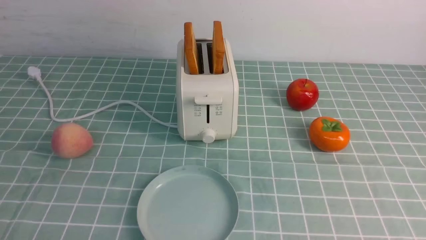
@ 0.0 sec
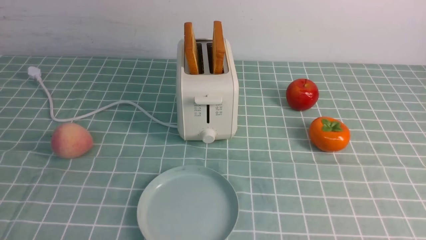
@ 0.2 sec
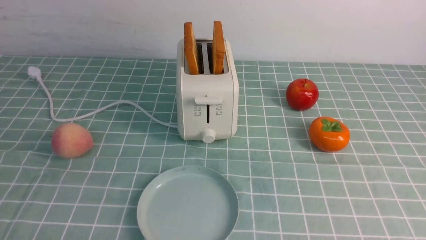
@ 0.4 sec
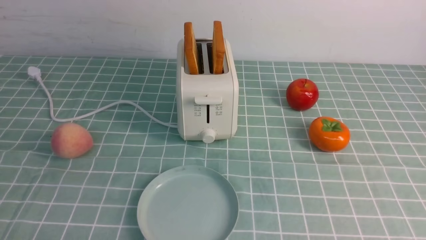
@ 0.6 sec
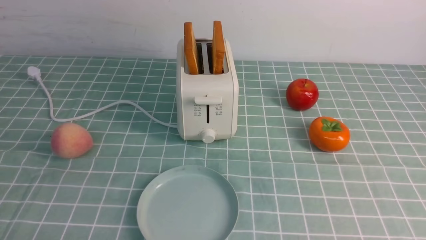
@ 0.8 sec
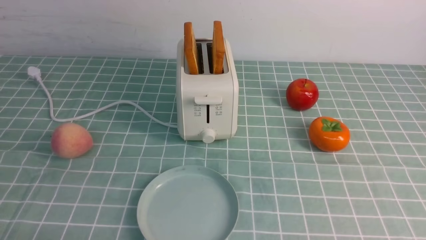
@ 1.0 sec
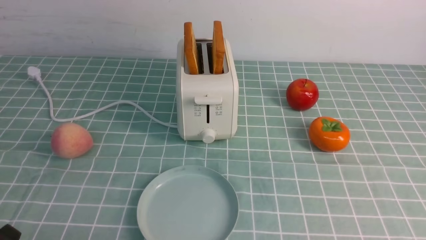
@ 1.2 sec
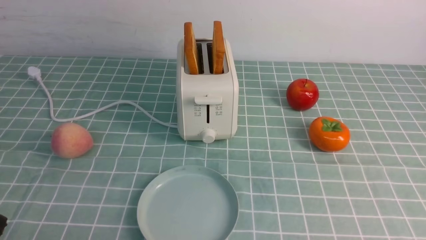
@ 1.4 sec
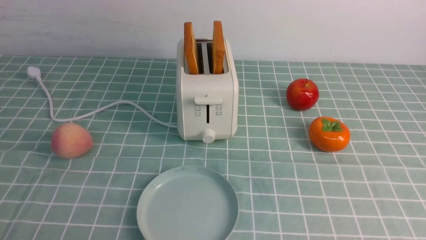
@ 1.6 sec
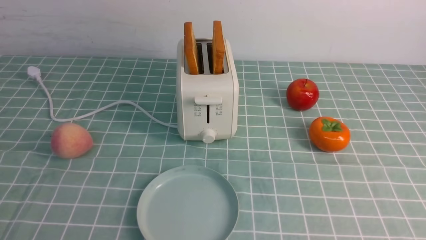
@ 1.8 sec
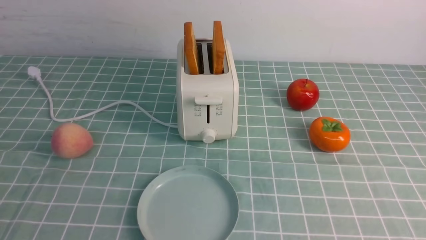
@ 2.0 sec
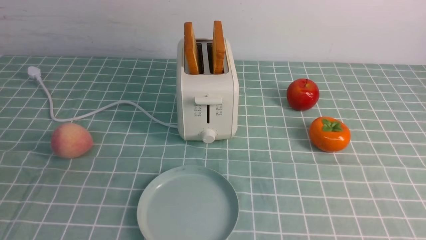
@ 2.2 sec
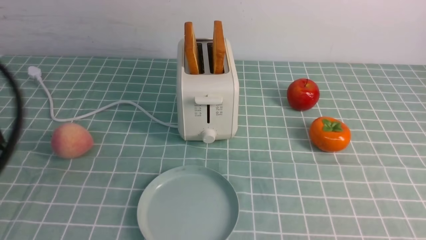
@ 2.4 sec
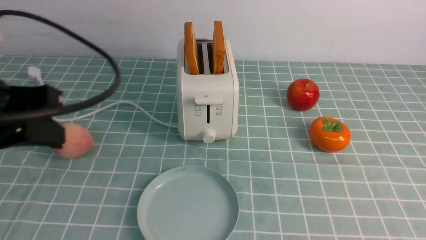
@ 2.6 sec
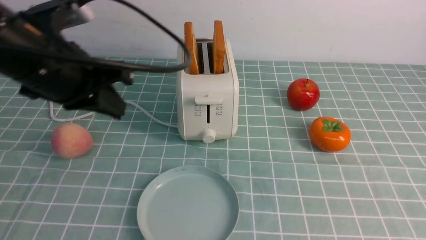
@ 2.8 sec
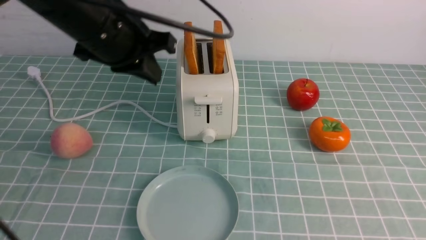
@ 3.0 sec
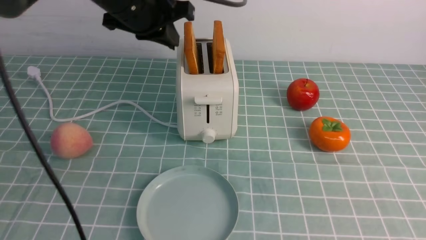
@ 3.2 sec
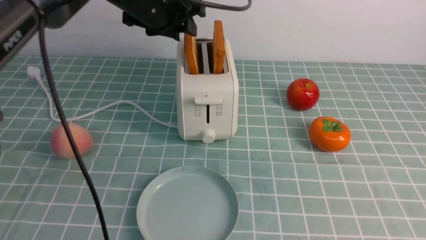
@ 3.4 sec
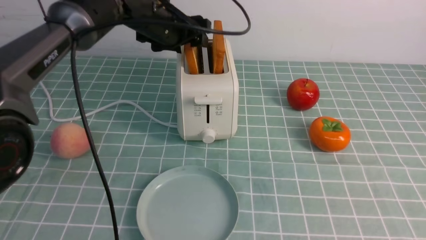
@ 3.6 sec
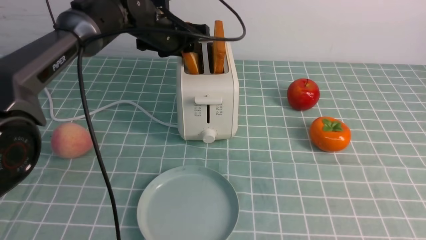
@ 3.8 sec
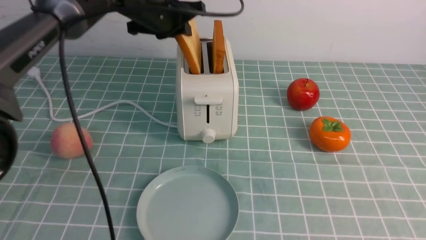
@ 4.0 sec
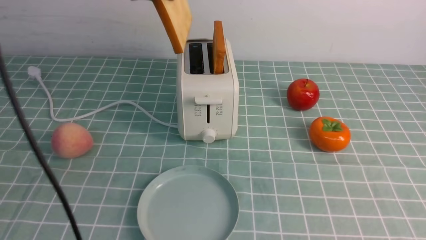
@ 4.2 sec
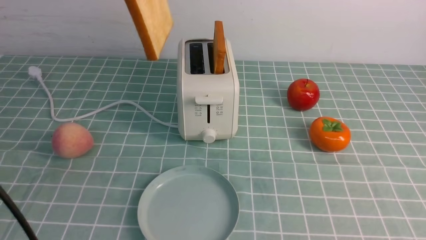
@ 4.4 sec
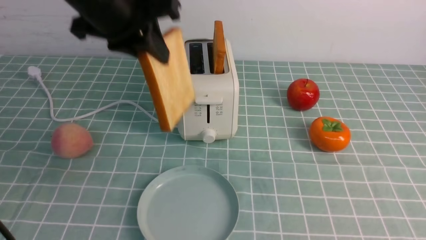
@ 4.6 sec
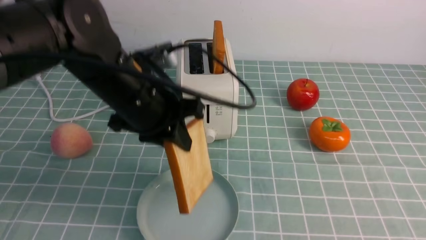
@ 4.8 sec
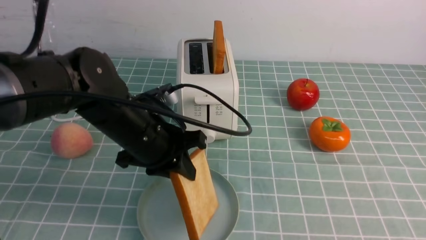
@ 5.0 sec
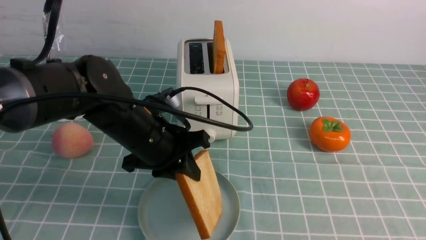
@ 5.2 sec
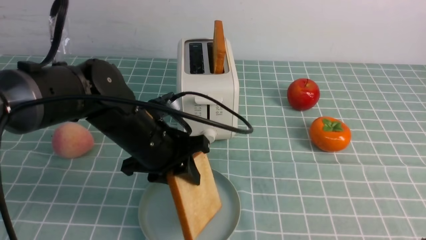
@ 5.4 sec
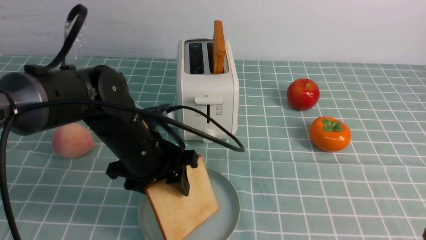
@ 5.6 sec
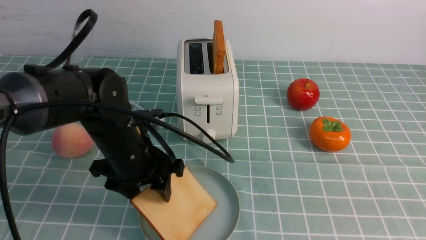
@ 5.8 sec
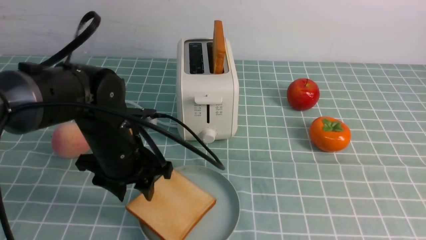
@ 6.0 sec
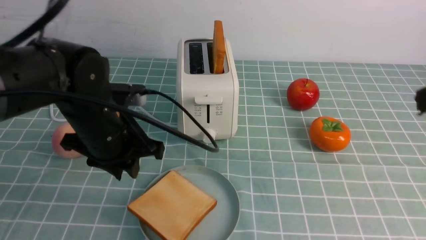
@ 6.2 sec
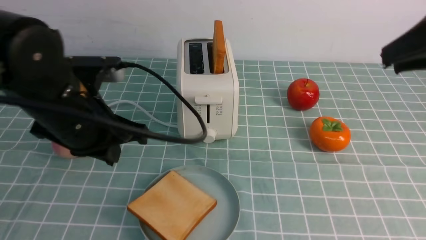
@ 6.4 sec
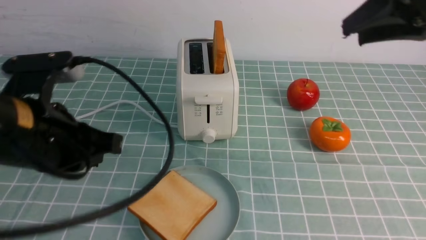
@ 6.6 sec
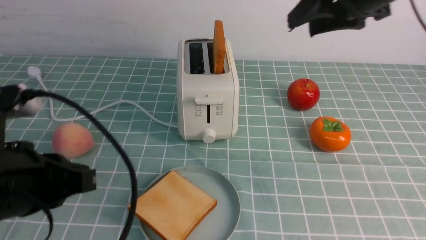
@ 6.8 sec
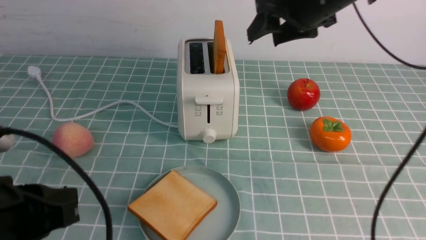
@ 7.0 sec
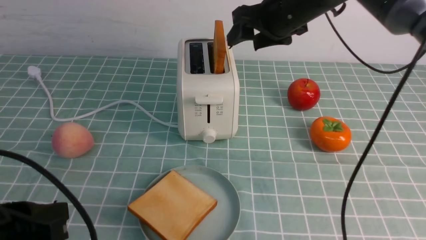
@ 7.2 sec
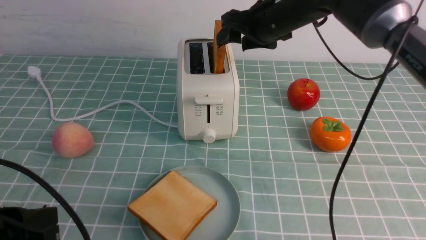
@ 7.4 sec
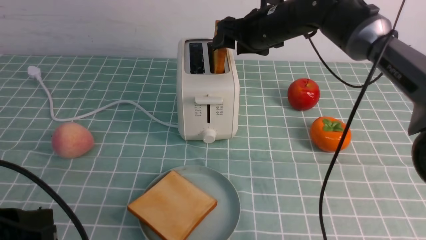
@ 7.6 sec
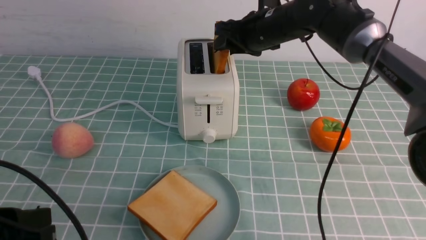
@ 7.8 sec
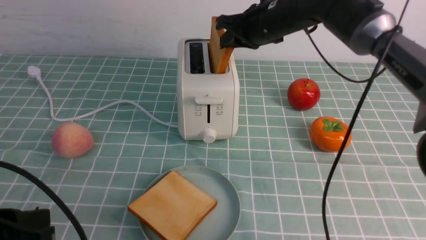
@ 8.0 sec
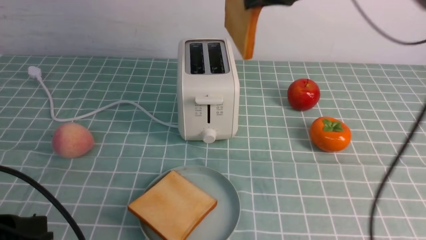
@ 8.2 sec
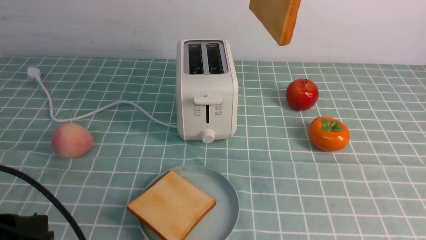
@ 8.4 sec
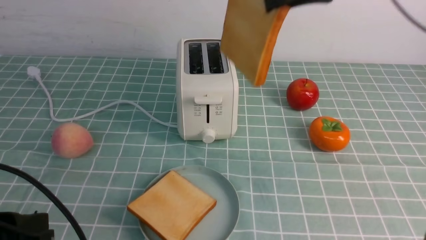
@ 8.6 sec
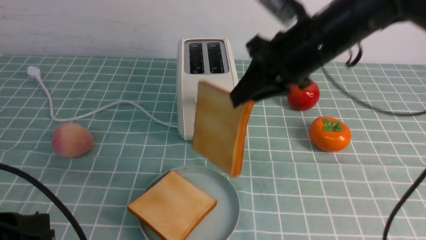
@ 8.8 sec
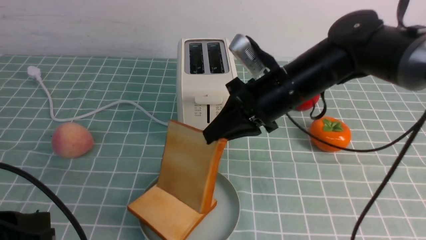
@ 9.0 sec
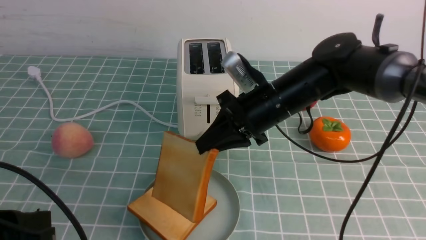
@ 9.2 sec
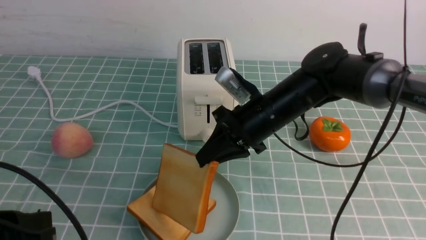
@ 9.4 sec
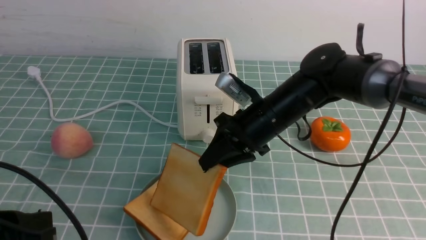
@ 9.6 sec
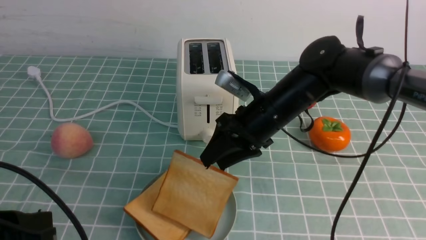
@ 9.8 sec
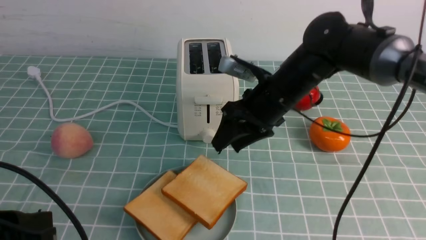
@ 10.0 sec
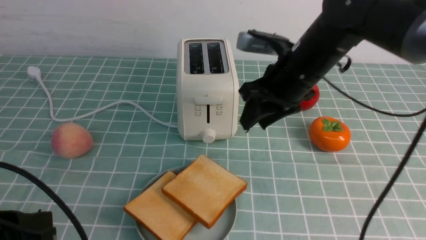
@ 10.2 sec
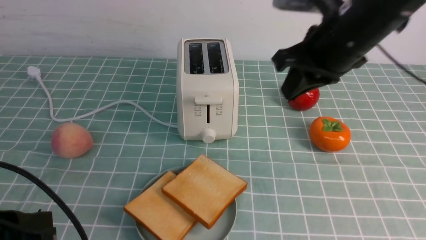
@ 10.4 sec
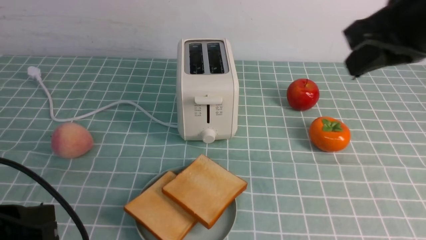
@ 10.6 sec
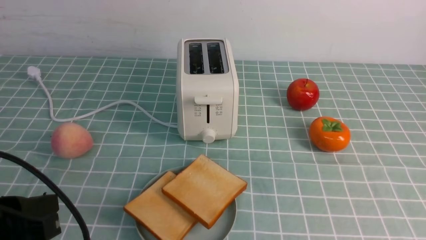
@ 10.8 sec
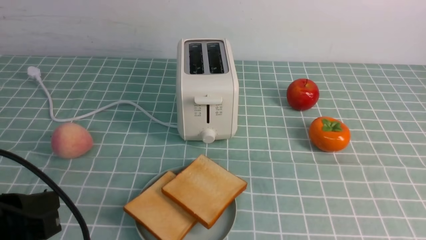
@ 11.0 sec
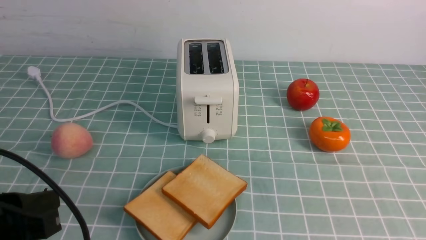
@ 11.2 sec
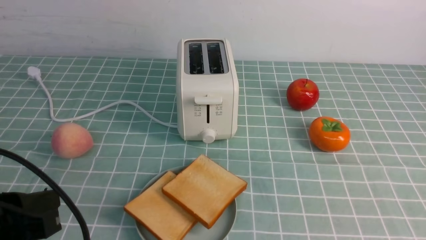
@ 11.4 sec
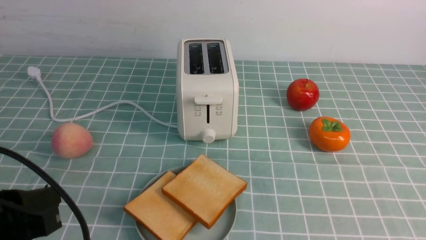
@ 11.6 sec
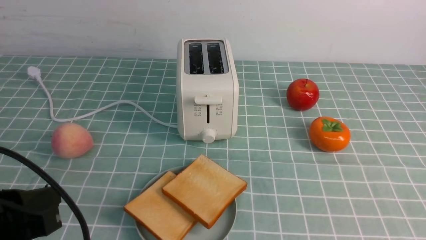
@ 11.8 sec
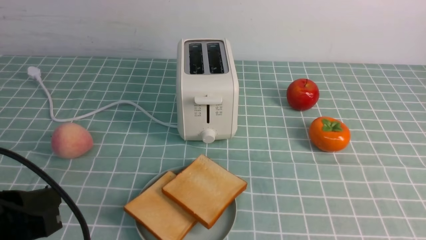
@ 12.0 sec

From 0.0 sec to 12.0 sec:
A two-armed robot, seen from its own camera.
Task of the whole recording: take toasted bread from bread machine on blue coffee table place on plate.
Step, from 0.0 sec to 4.0 sec: use the left arm to take out a slice of bread.
Step, from 4.2 sec to 6.2 sec: use the left arm to put a slice of bread into the empty plate.
Step, from 6.4 sec to 8.4 sec: use the right arm to take out a slice of bread.
Step, from 8.6 sec to 10.4 sec: use the right arm to put a slice of bread into the plate.
From 1.6 sec to 3.0 sec: The left gripper moves forward, upward and to the right, about 35 cm. Meanwhile the right gripper travels upward by some 10 cm, and closes.
From 3.0 sec to 4.4 sec: The left gripper moves upward, approximately 5 cm, goes forward and returns, about 15 cm each way, and opens and closes again.
From 4.4 sec to 6.0 sec: The left gripper shifts roughly 20 cm downward, and opens up. The right gripper shifts approximately 15 cm upward and forward.
From 6.0 sec to 7.6 sec: The left gripper is displaced backward and to the left by roughly 20 cm, and closes, while the right gripper travels forward and to the left by roughly 40 cm, and opens up.
From 7.6 sec to 9.0 sec: The right gripper moves backward, about 15 cm, travels upward and back again, some 15 cm each way, and closes its fingers.
From 9.0 sec to 10.4 sec: The right gripper is displaced upward and to the right by some 10 cm, and opens, then closes once more.
From 10.4 sec to 12.0 sec: The right gripper travels backward and to the right by roughly 30 cm.

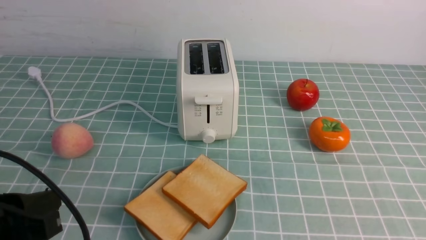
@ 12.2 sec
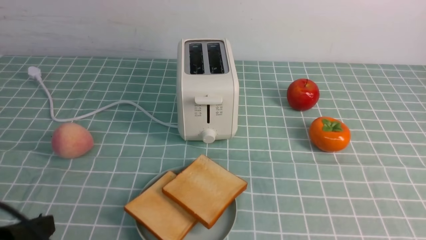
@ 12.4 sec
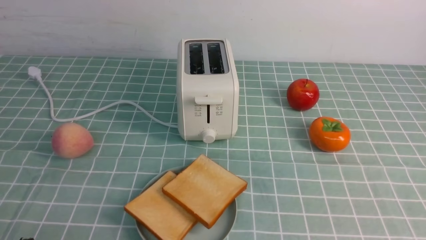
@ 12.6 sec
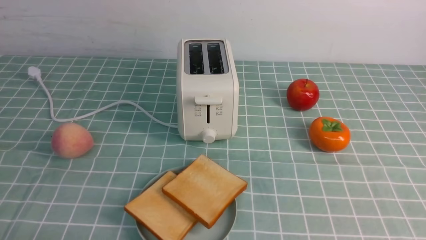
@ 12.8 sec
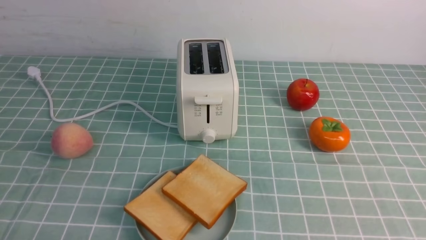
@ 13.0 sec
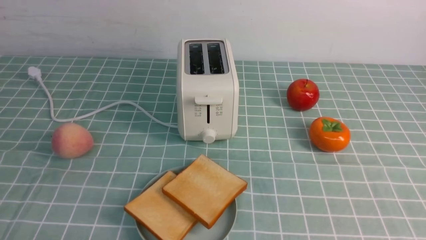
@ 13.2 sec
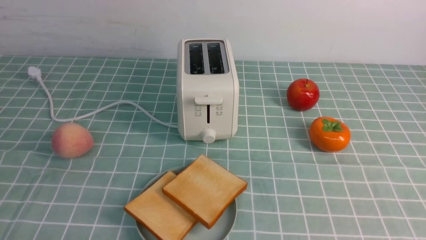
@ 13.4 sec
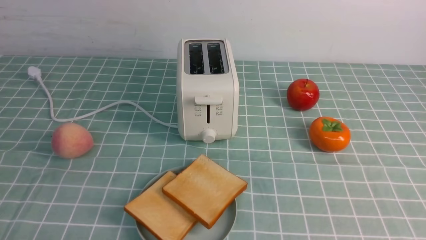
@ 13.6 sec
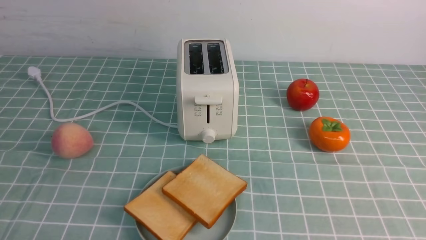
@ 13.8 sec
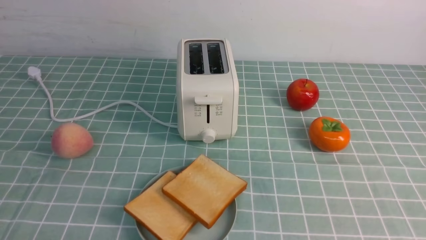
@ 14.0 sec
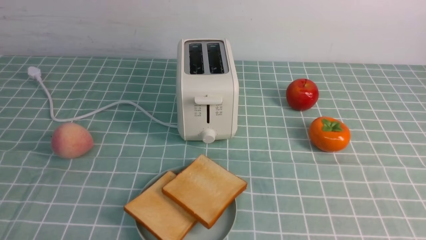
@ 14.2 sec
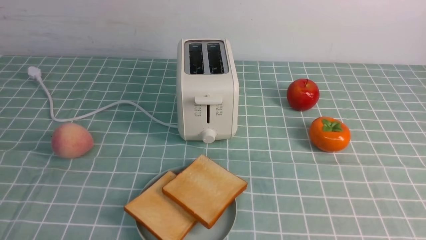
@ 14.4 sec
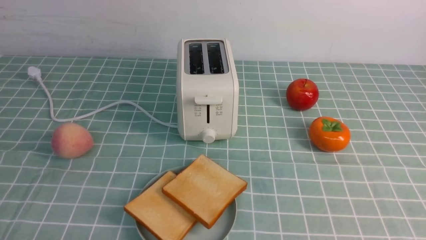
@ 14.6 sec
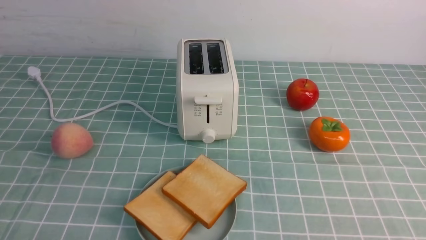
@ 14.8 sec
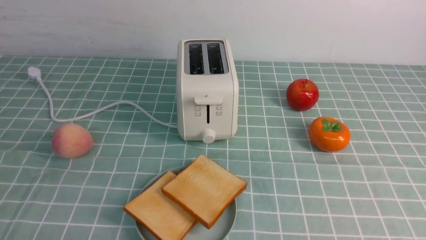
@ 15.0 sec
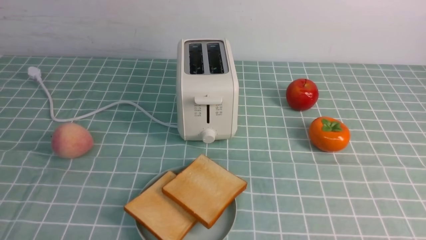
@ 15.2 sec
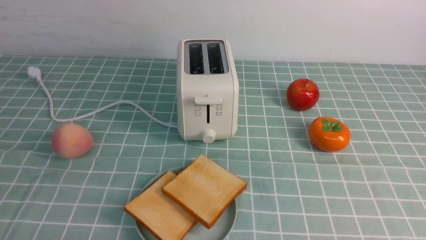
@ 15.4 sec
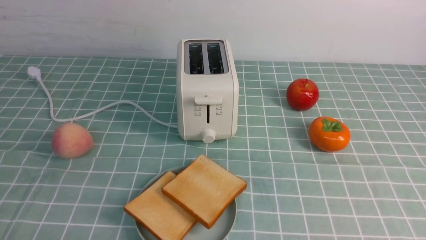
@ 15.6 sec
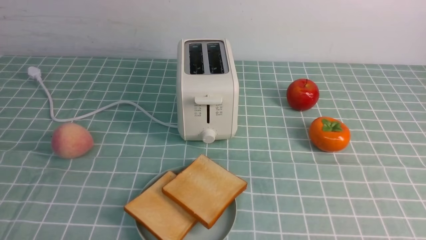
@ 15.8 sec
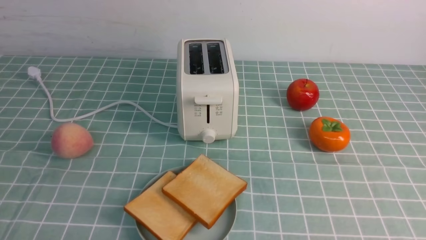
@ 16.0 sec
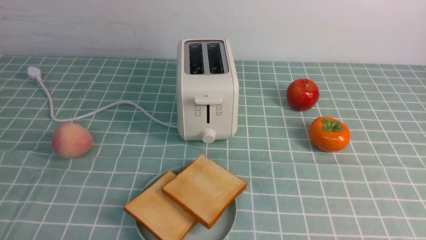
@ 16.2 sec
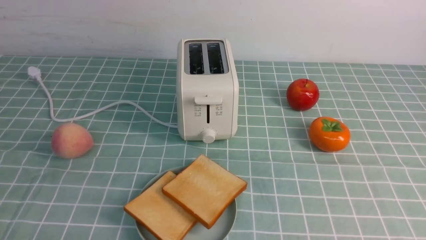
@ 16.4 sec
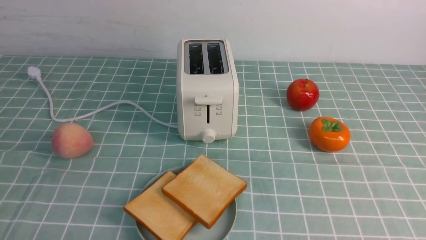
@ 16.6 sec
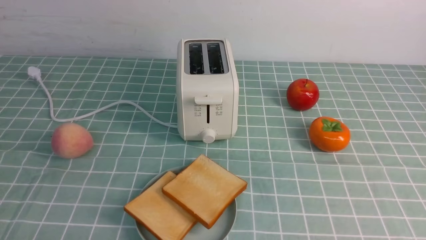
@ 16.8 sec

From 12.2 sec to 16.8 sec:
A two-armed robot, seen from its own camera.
Task of the whole recording: take toasted bread from bread machine on blue coffee table place on plate.
From 12.2 sec to 13.8 sec: The left gripper is displaced downward and backward by roughly 10 cm.
